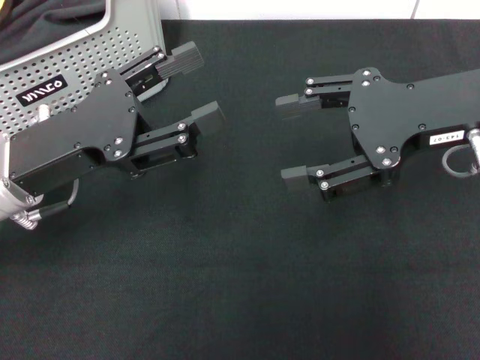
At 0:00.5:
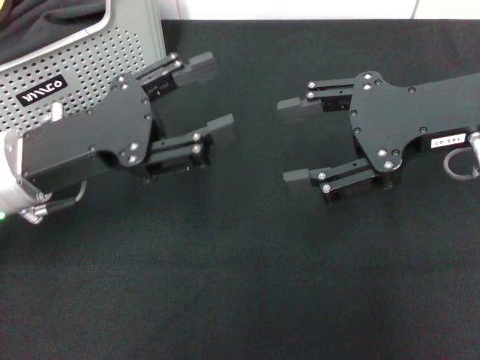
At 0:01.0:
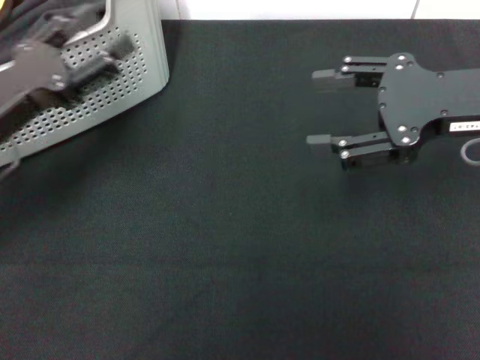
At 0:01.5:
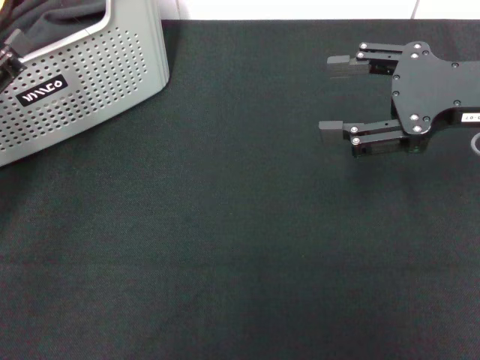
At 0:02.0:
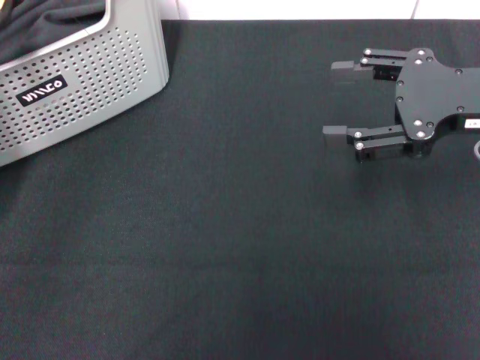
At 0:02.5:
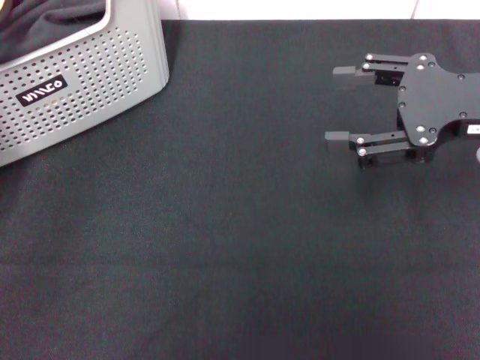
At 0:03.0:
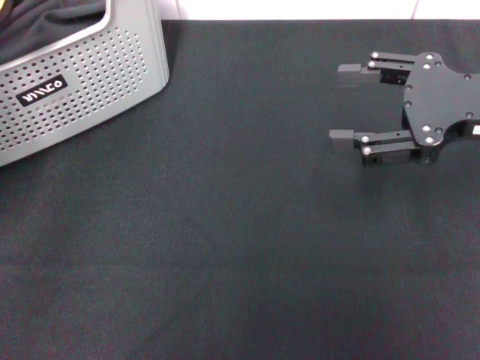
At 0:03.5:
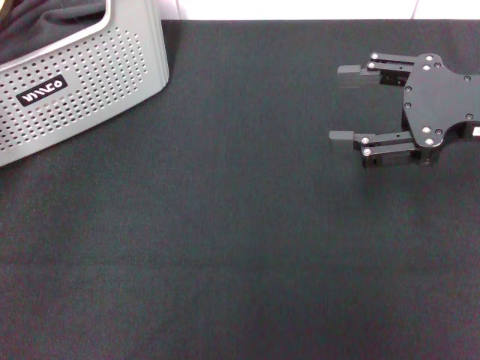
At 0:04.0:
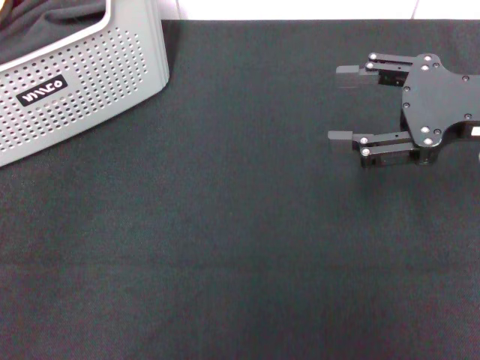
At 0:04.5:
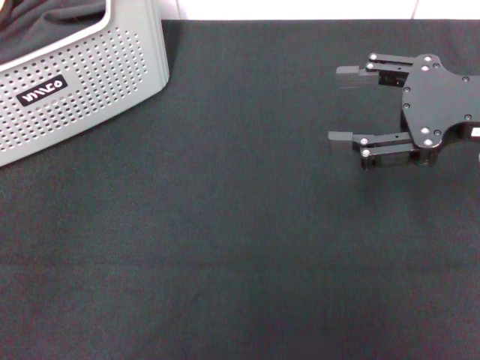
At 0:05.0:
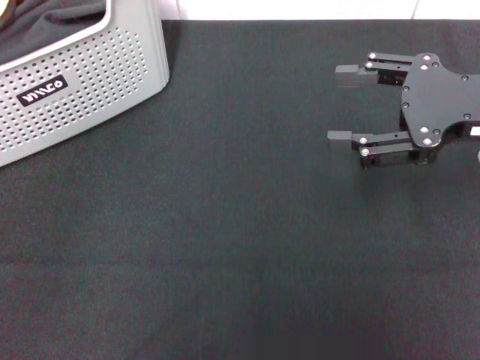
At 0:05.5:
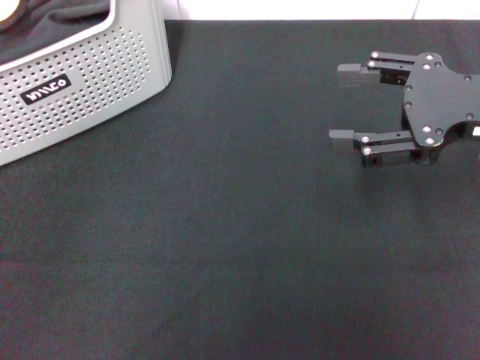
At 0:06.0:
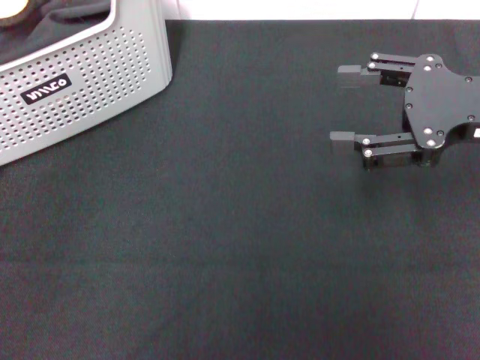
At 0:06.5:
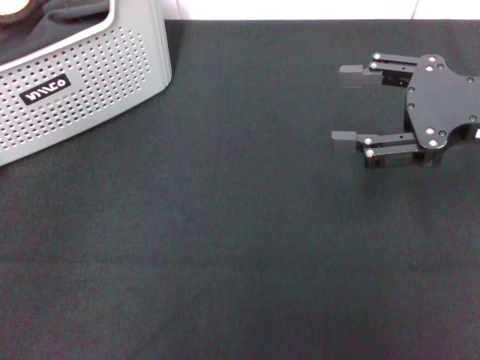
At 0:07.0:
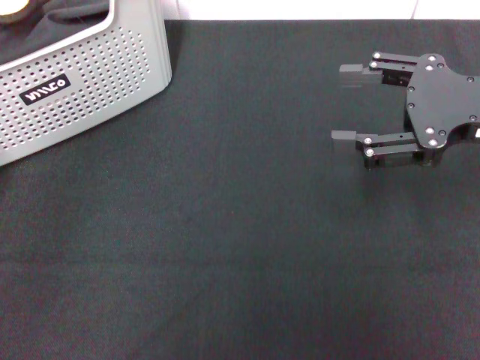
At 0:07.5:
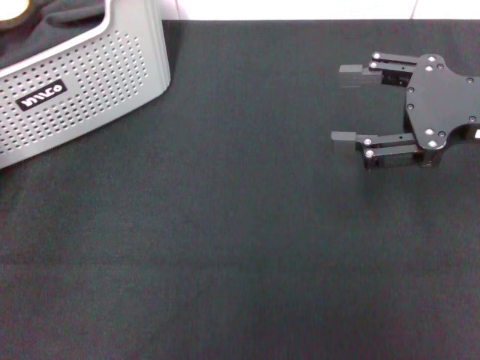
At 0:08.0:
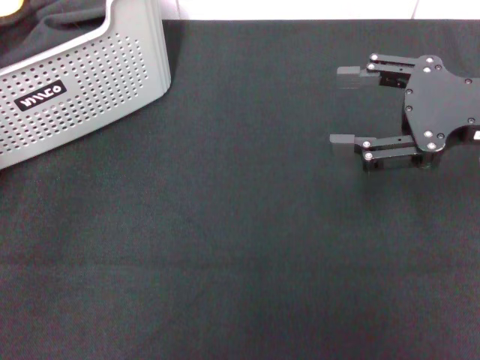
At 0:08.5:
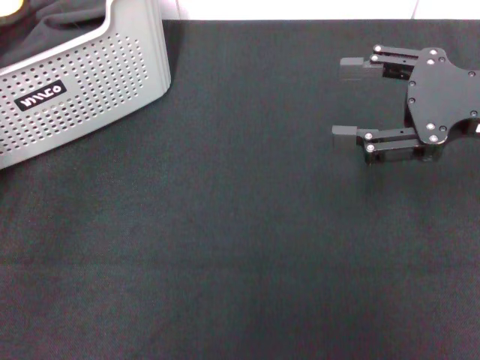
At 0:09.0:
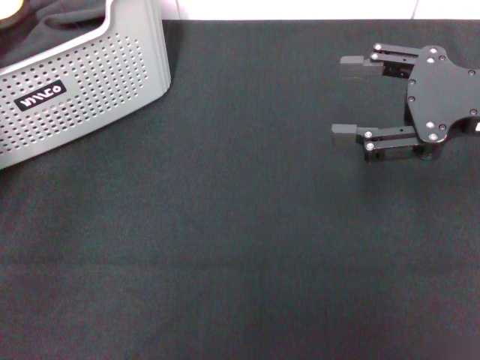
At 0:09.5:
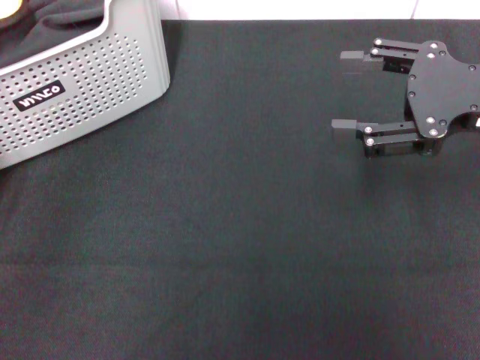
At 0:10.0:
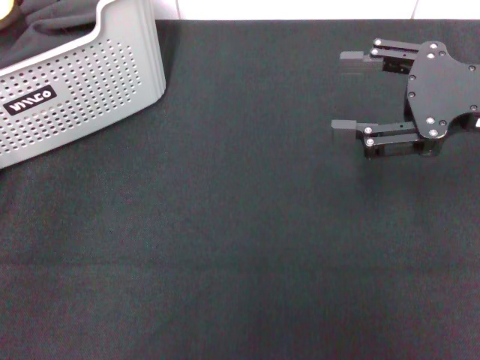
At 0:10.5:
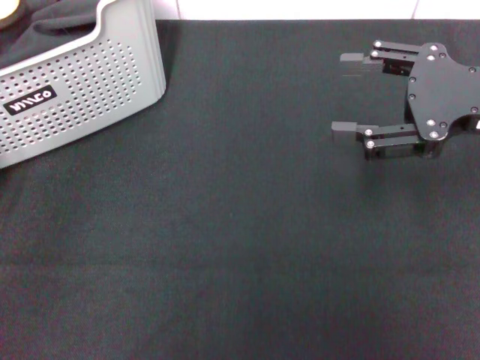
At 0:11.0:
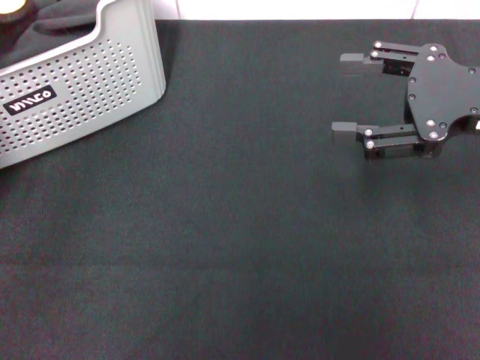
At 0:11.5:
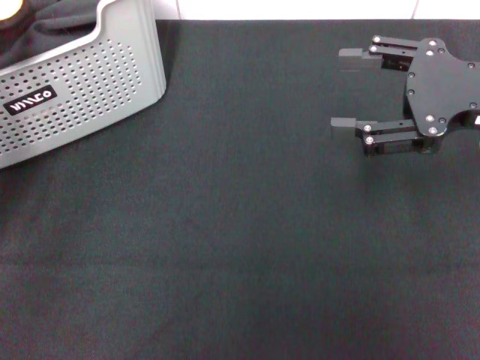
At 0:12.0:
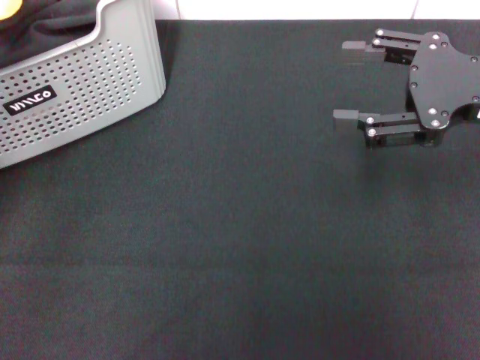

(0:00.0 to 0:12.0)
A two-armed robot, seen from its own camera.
Task of the whole recording: pick up the towel from the storage box and lay it flat on the black tablecloth.
0:00.0 - 0:02.0: The left gripper shifts approximately 10 cm to the left.
0:02.0 - 0:04.0: The left gripper ends up approximately 5 cm from where it was.
0:04.0 - 0:06.0: There are only small adjustments of the grippers.
0:06.0 - 0:08.0: The left gripper closes, then reopens.
0:08.0 - 0:10.0: The grippers move only a little.
0:10.0 - 0:12.0: The left gripper is displaced upward by about 5 cm.

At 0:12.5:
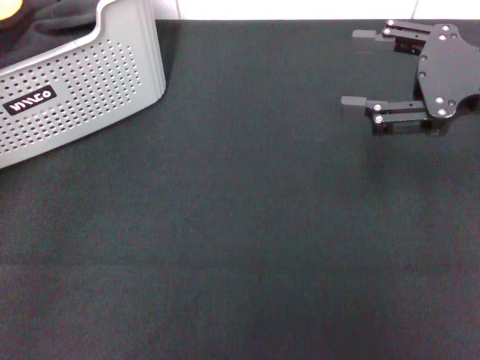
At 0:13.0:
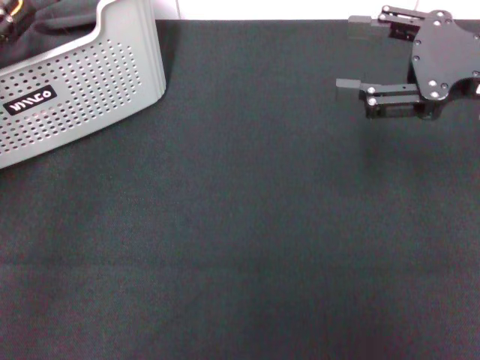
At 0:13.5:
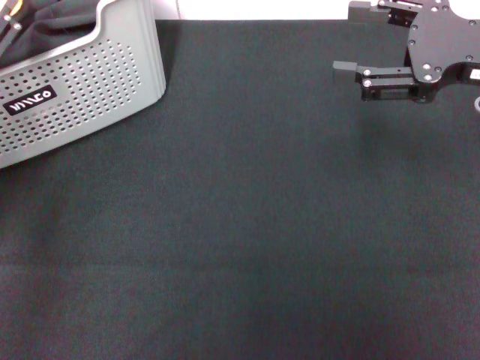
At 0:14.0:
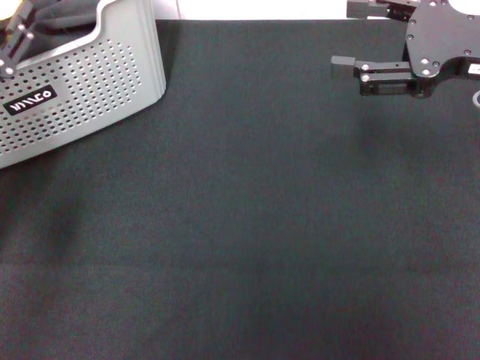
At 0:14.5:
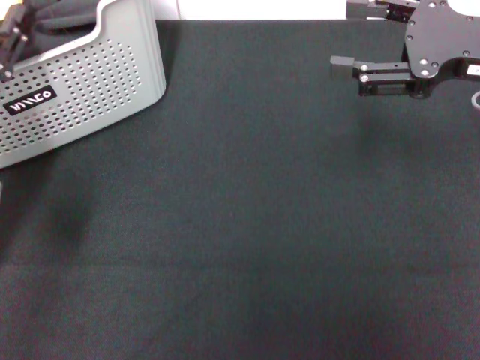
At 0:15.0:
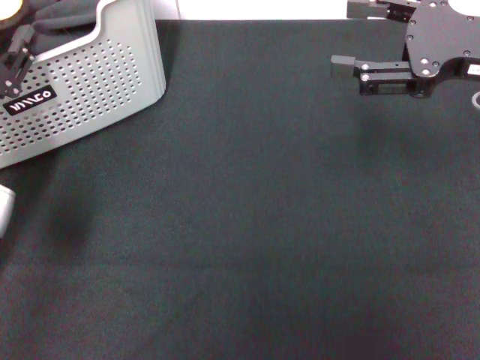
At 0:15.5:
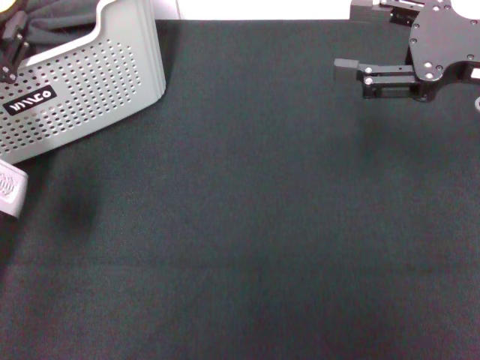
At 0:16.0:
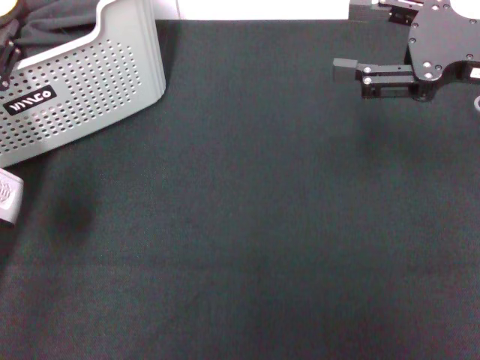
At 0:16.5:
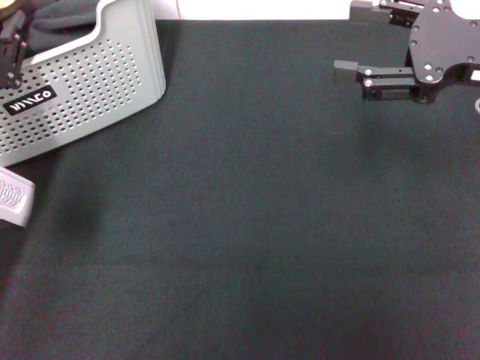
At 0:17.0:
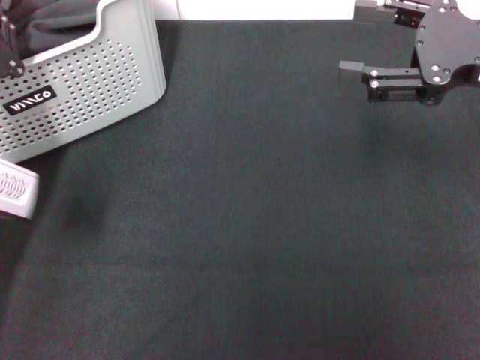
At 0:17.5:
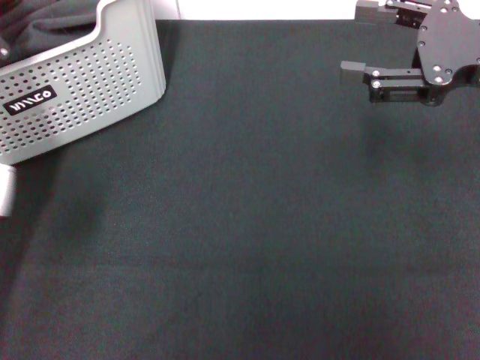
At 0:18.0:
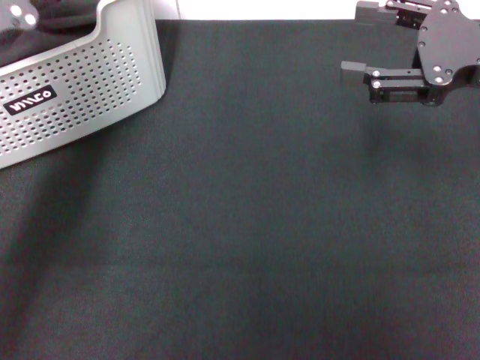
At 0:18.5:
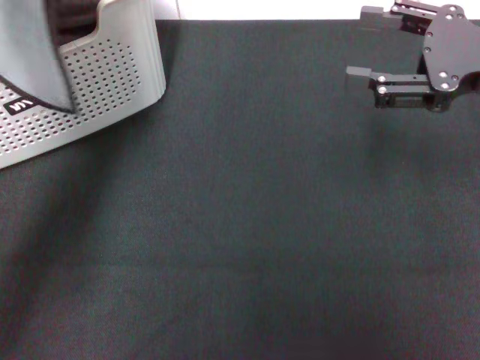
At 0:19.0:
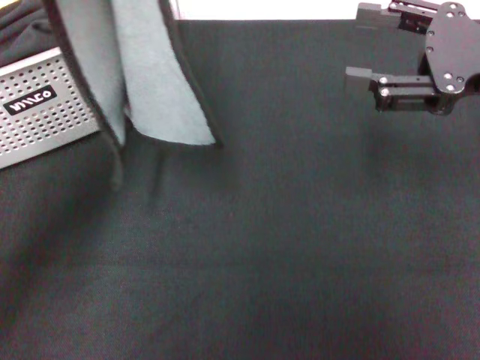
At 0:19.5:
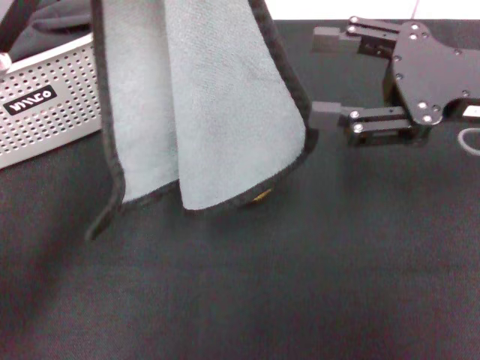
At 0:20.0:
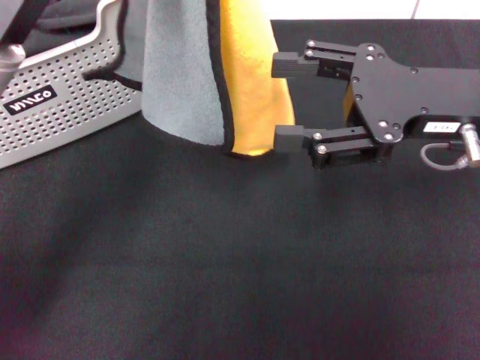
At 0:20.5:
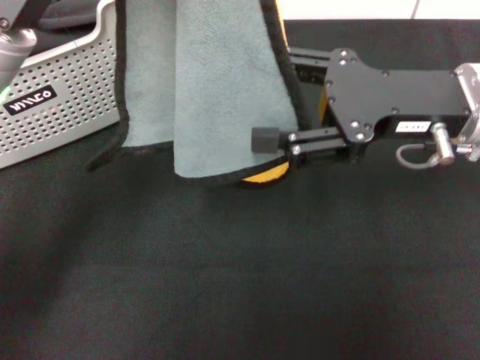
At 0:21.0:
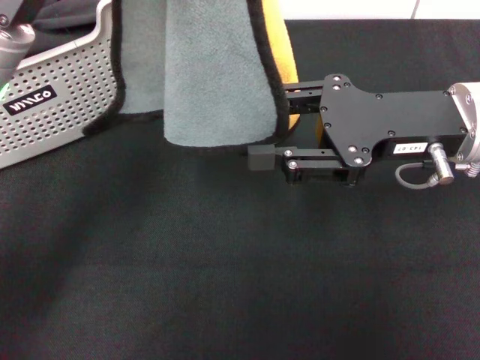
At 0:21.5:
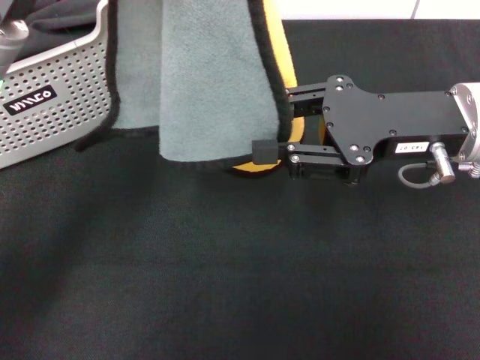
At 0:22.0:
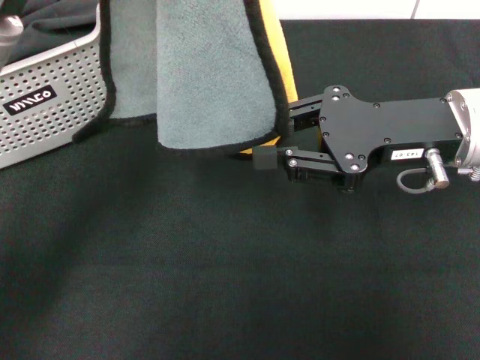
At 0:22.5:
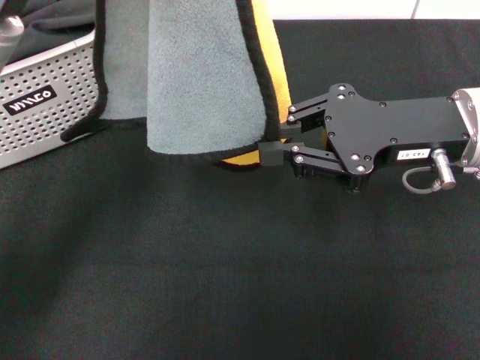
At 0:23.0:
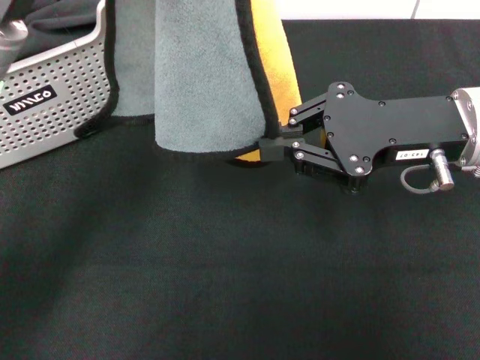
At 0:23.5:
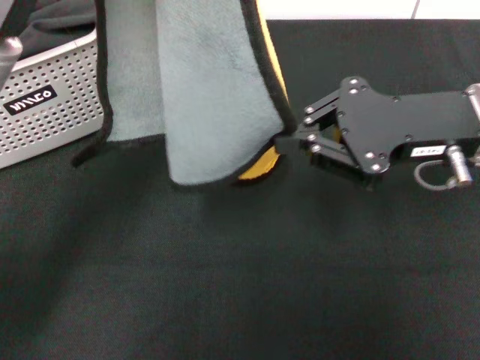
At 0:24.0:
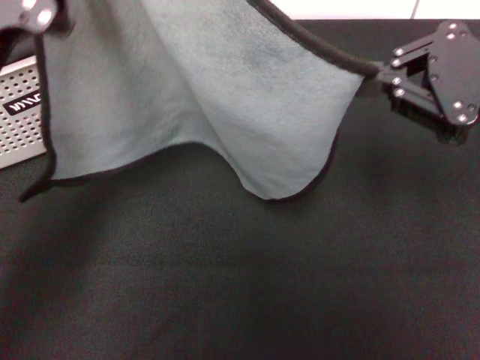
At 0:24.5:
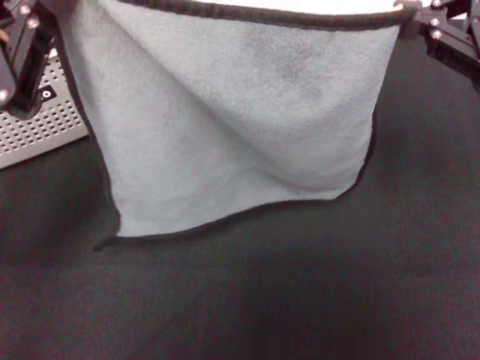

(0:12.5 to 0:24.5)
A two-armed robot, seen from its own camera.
Task of the whole recording: pick up the towel from the storage box and lay it flat on the black tablecloth.
Step, 0:12.5 - 0:17.0: Pick up a towel with the left gripper.
Step, 0:17.5 - 0:23.0: Spread the towel flat with the left gripper.
0:12.5 - 0:14.5: The left gripper travels downward by approximately 10 cm.
0:14.5 - 0:16.5: The grippers move only a little.
0:16.5 - 0:18.5: The left gripper travels upward and to the right by some 10 cm, and closes.
0:18.5 - 0:20.5: The left gripper heads to the right, covering roughly 5 cm. The right gripper goes about 10 cm to the left.
0:20.5 - 0:22.5: The right gripper closes up.
0:22.5 - 0:24.5: The left gripper moves to the left and downward, about 10 cm; the right gripper travels upward and to the right by roughly 10 cm.

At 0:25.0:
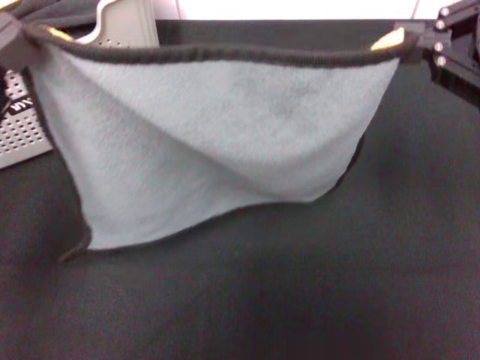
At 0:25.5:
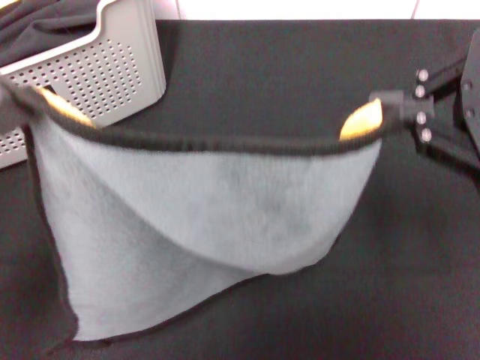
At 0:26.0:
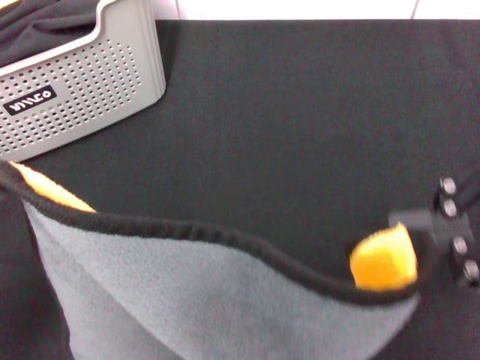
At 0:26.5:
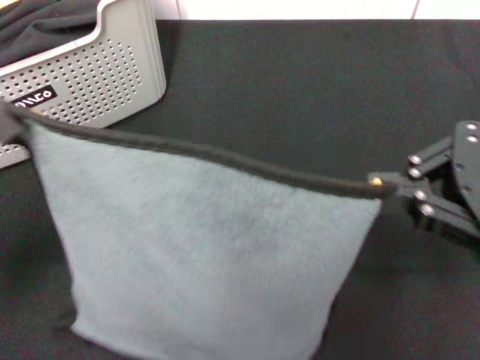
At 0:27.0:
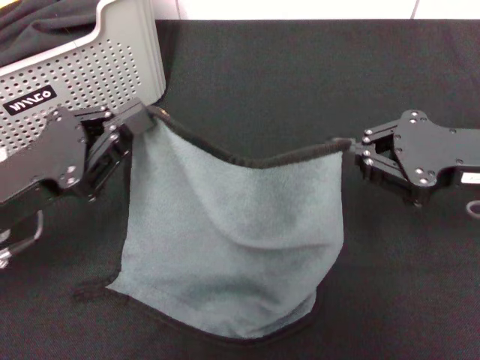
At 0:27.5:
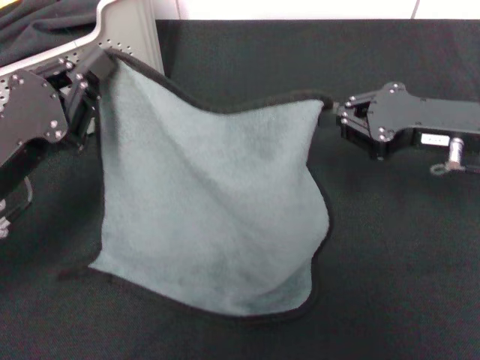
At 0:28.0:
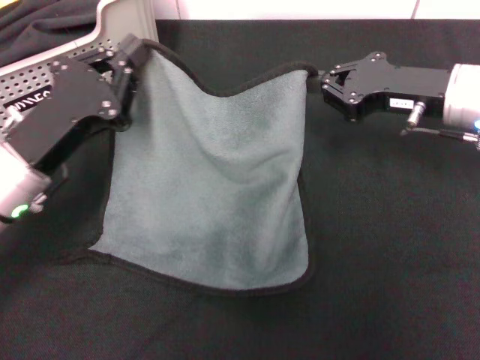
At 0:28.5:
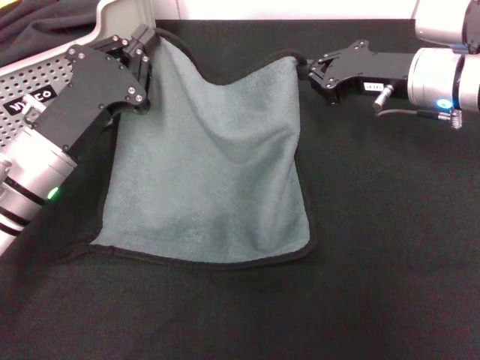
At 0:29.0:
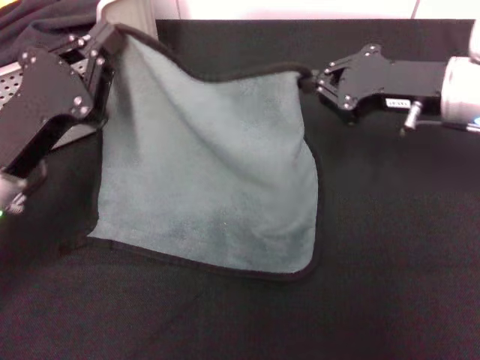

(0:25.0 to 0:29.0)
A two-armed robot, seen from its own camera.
Task of the whole recording: pick up the towel from the storage box and lay it flat on the black tablecloth.
0:25.0 - 0:27.0: The right gripper is displaced downward by about 10 cm. Meanwhile the left gripper moves downward and forward, roughly 10 cm.
0:27.0 - 0:29.0: The right gripper shifts approximately 10 cm forward.
